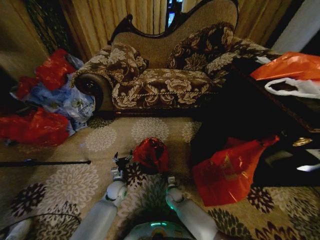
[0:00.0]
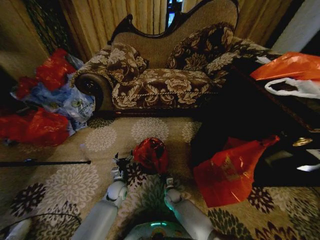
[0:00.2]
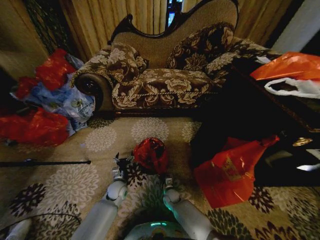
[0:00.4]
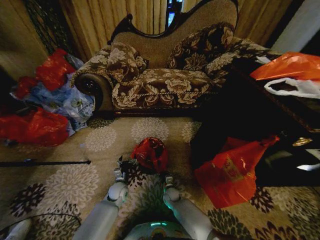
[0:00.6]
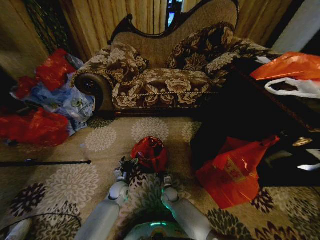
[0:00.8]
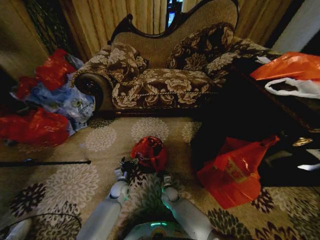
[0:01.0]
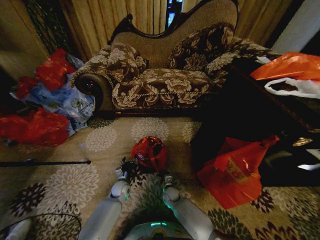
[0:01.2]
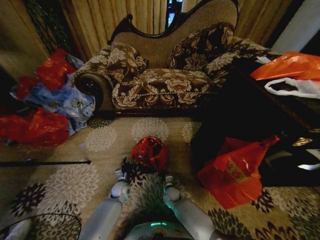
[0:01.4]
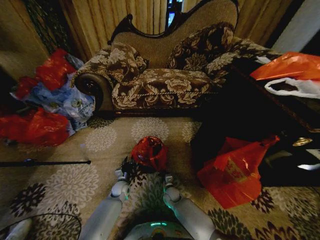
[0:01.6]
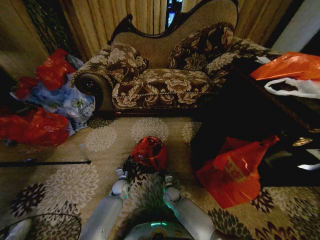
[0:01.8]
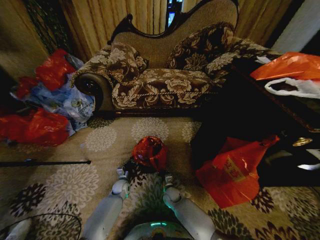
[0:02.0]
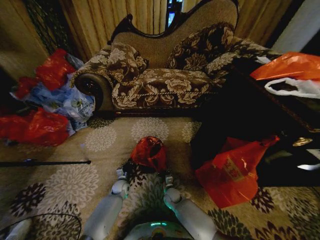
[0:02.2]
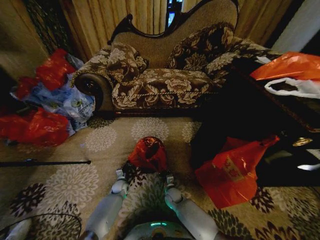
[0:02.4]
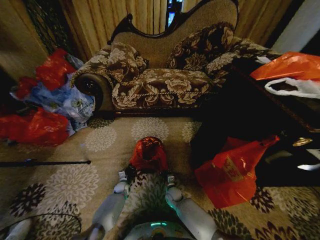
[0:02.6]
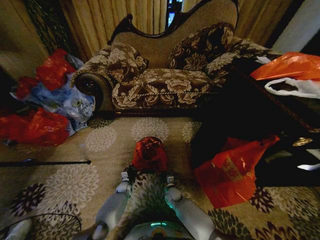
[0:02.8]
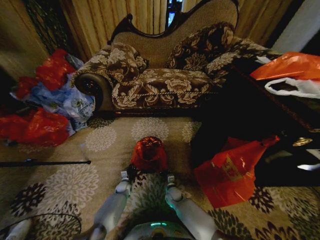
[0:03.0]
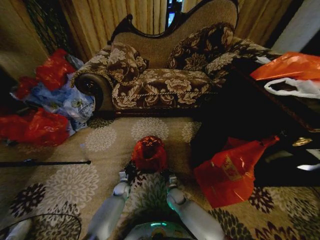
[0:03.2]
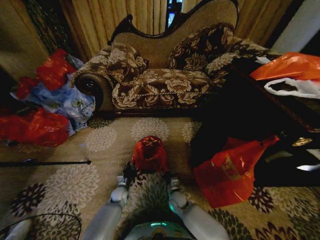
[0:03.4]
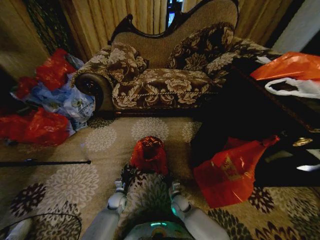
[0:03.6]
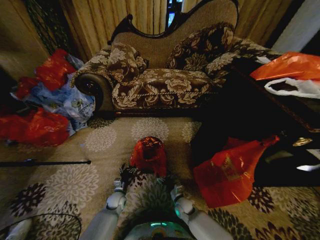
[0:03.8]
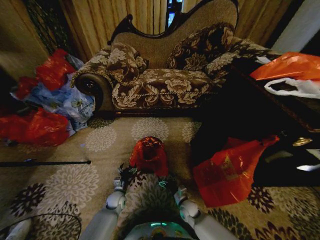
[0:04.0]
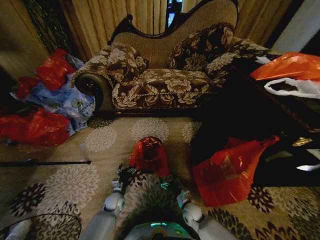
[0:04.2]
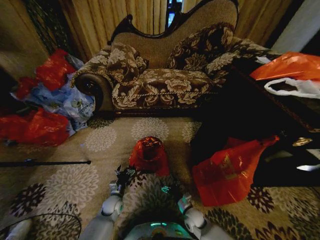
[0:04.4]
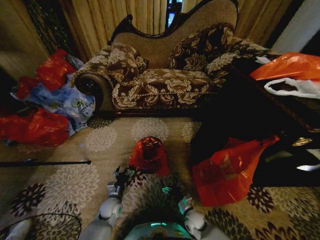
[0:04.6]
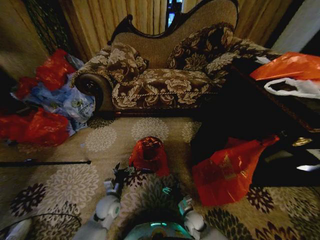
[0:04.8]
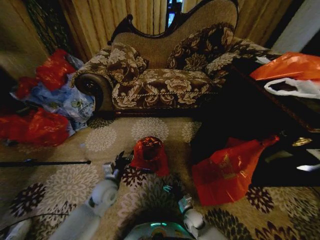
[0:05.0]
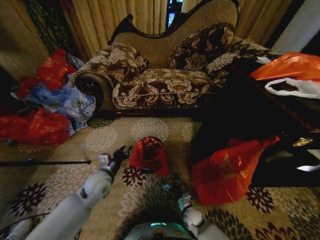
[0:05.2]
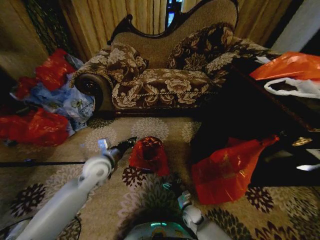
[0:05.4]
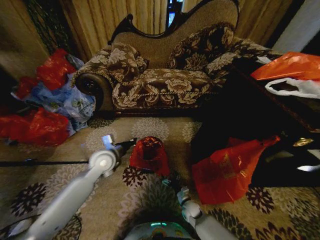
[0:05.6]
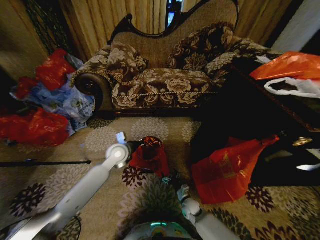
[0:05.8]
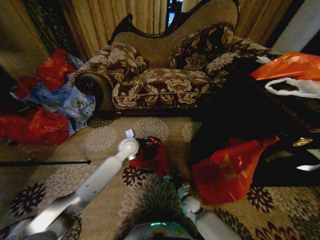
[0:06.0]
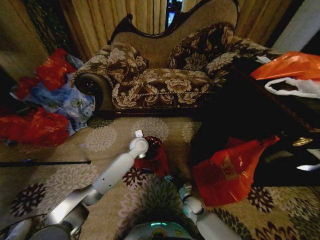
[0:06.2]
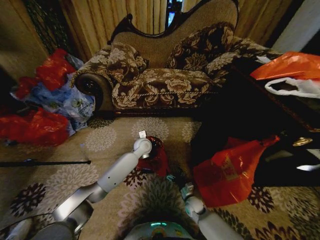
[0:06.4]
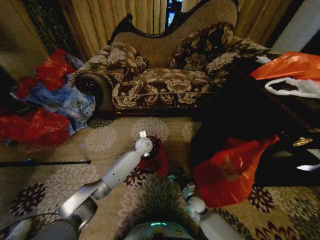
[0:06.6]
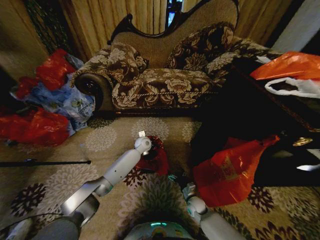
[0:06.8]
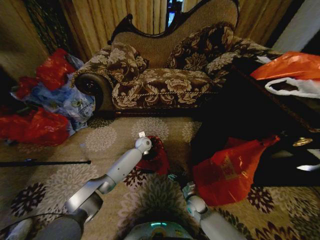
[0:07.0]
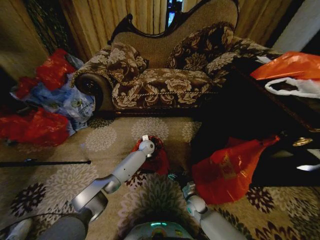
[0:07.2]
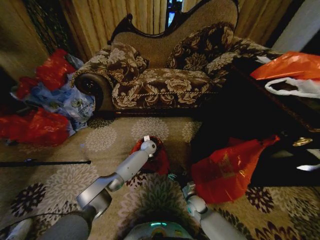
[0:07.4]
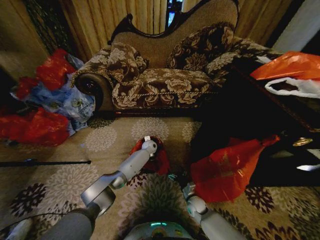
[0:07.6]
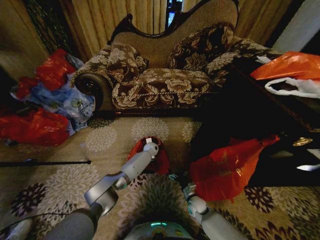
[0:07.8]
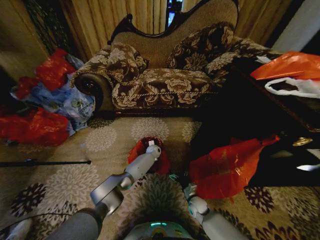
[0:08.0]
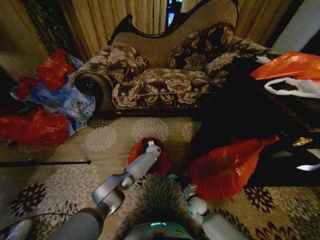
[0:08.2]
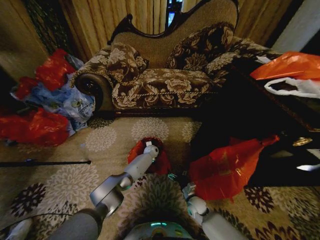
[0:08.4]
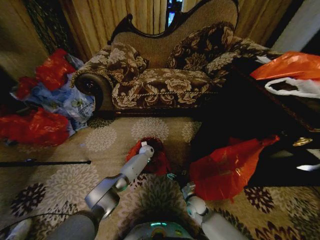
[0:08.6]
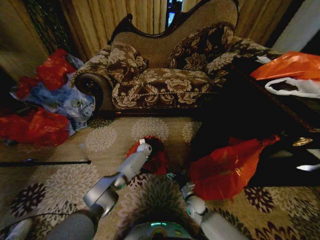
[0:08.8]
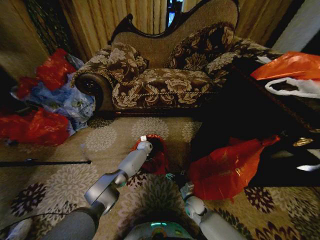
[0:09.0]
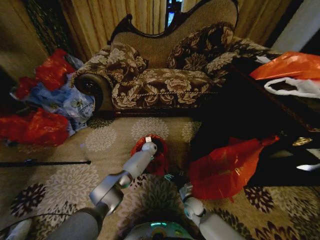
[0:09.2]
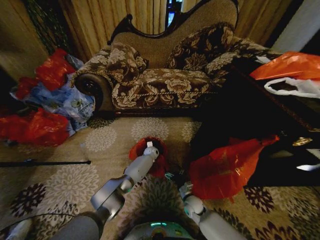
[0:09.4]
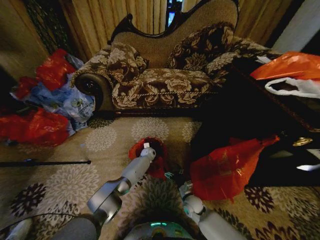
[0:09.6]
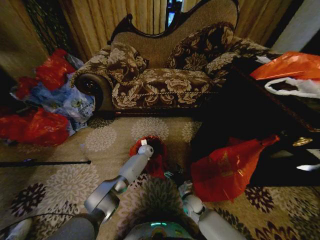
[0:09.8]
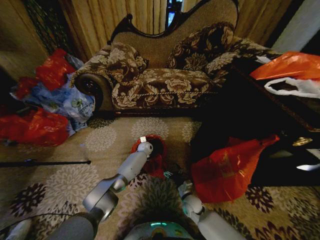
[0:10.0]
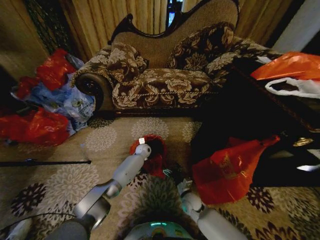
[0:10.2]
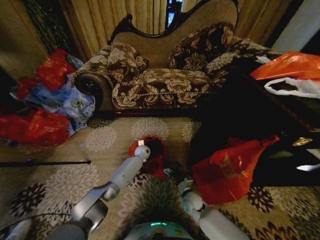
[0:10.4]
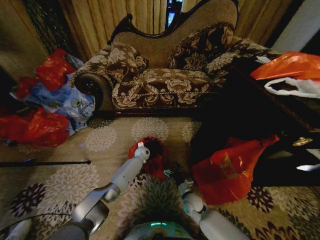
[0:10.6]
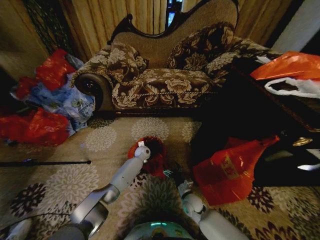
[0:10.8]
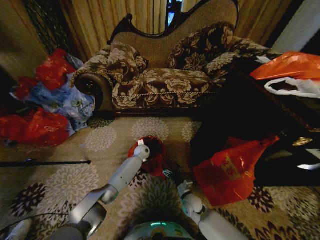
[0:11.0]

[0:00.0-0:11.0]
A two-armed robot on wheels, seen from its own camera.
Task of the whole recording: Place a garbage bag over the trash bin.
0:00.0 to 0:01.6: The left gripper travels downward by about 5 cm, and closes.
0:01.6 to 0:03.2: The left gripper moves downward, about 5 cm.
0:03.2 to 0:04.8: The right gripper shifts some 15 cm backward and to the right, and opens, while the left gripper moves upward and backward, some 20 cm, and opens.
0:04.8 to 0:06.2: The right gripper is displaced forward by about 5 cm, while the left gripper moves forward, upward and to the right, approximately 30 cm, and closes up.
0:06.2 to 0:07.8: The left gripper heads downward, forward and to the right, covering some 15 cm.
0:07.8 to 0:09.4: The grippers move only a little.
0:09.4 to 0:11.0: The left gripper is displaced upward and to the left by roughly 10 cm.

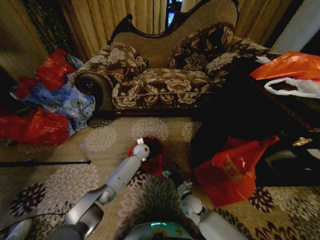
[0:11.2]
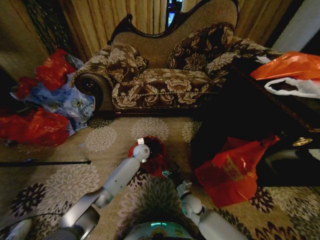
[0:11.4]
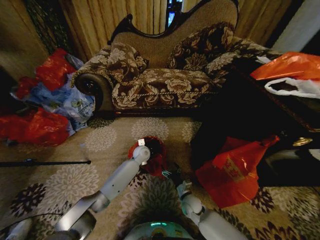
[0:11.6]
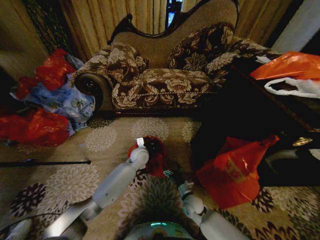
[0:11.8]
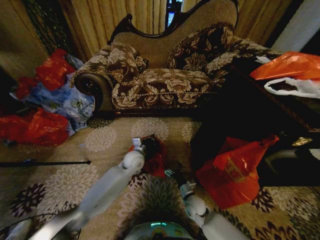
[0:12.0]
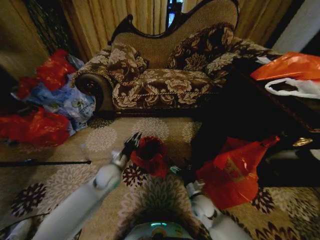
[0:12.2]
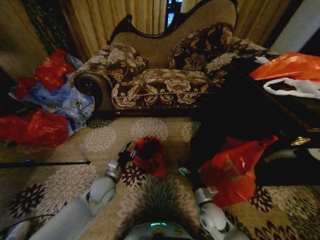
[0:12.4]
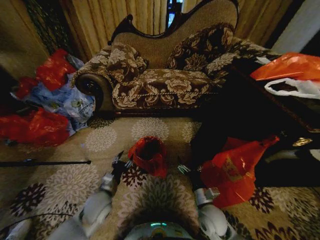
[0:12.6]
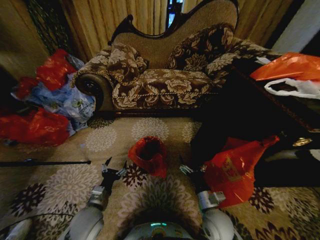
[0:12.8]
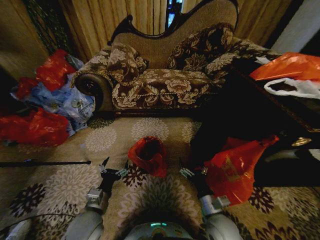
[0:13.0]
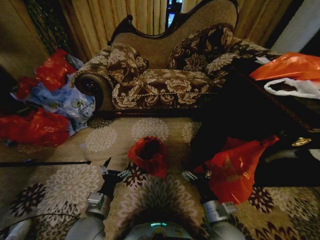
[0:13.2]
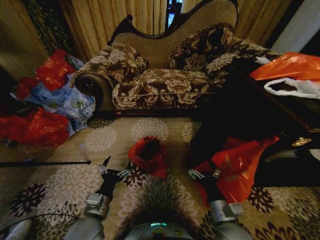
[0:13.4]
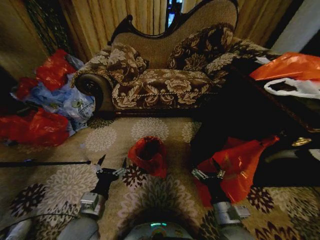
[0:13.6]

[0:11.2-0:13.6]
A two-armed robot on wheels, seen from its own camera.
Task of the whole recording: Place a garbage bag over the trash bin.
0:11.2 to 0:12.4: The left gripper moves backward and to the left, roughly 25 cm, and opens up, while the right gripper goes about 10 cm upward, backward and to the right.
0:12.4 to 0:13.6: The right gripper is displaced upward and backward by some 15 cm. Meanwhile the left gripper is displaced backward by approximately 15 cm, and opens.
